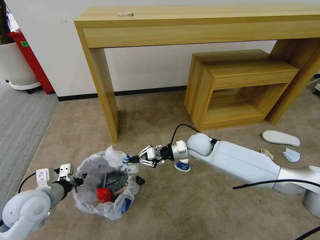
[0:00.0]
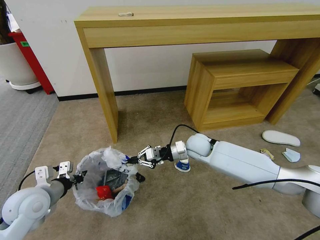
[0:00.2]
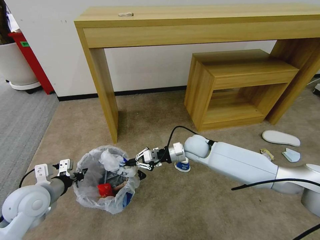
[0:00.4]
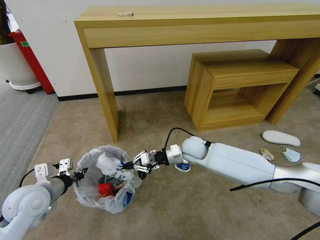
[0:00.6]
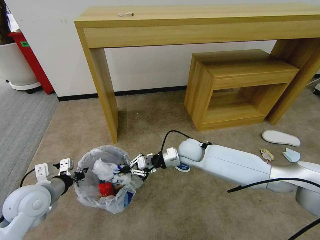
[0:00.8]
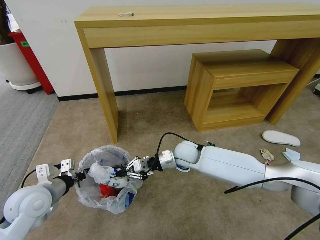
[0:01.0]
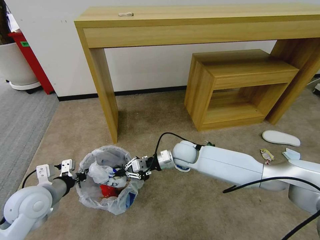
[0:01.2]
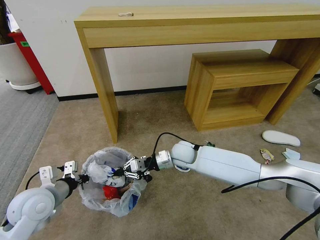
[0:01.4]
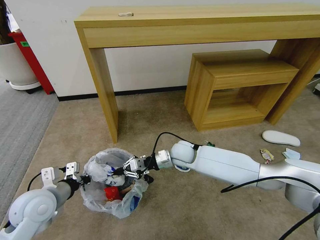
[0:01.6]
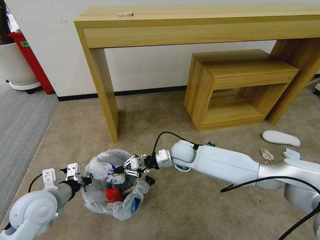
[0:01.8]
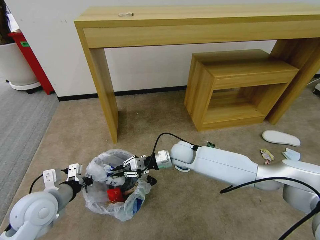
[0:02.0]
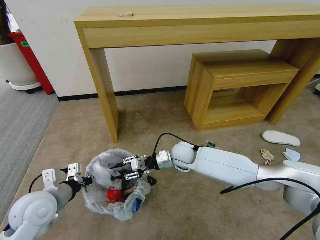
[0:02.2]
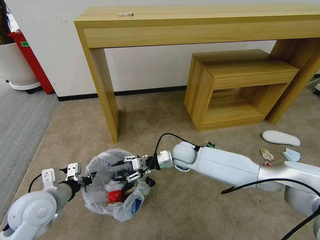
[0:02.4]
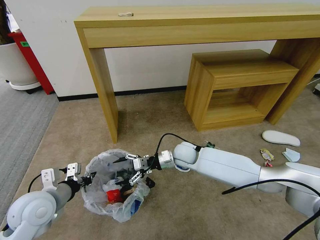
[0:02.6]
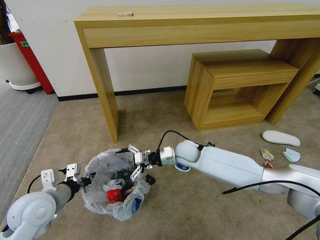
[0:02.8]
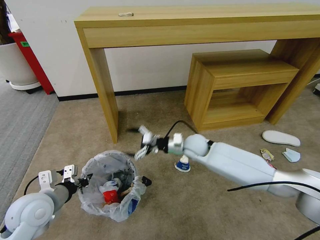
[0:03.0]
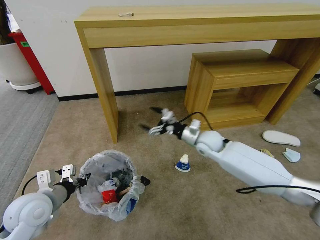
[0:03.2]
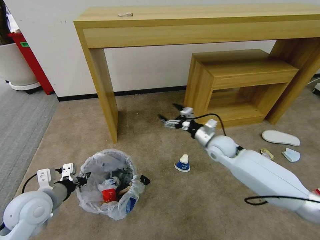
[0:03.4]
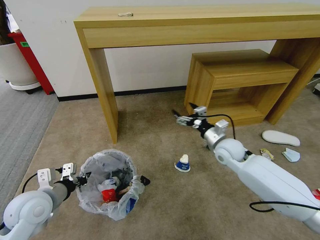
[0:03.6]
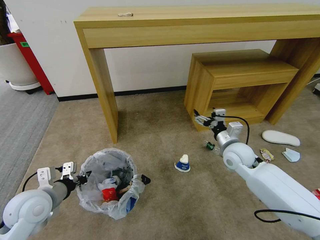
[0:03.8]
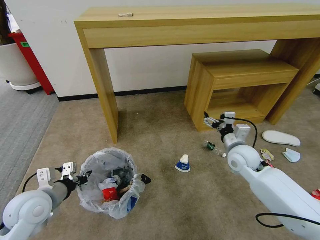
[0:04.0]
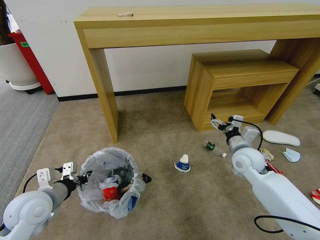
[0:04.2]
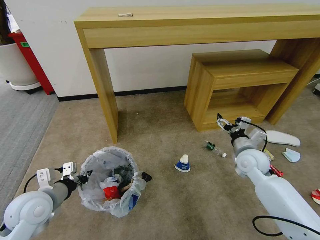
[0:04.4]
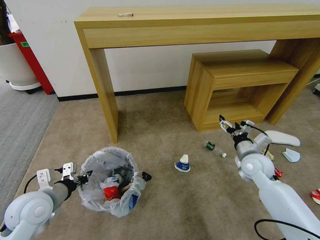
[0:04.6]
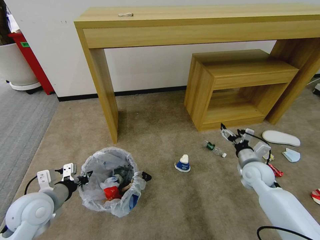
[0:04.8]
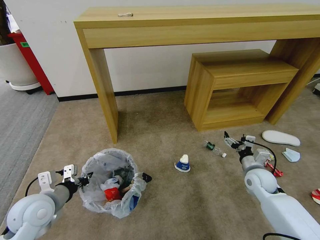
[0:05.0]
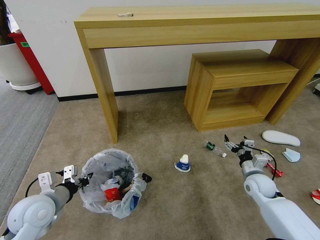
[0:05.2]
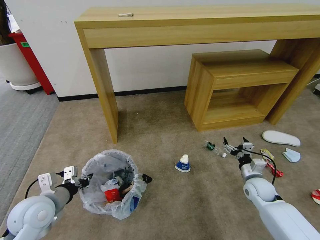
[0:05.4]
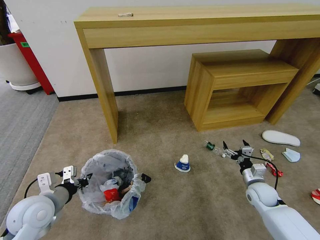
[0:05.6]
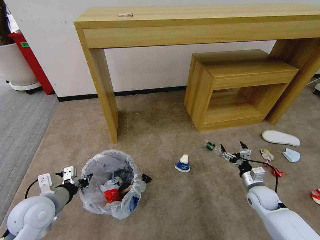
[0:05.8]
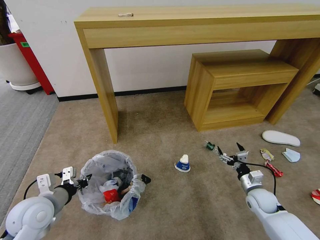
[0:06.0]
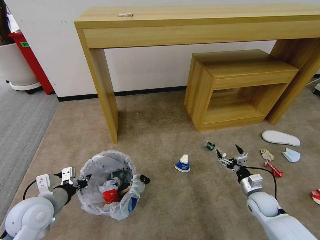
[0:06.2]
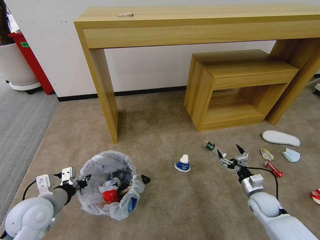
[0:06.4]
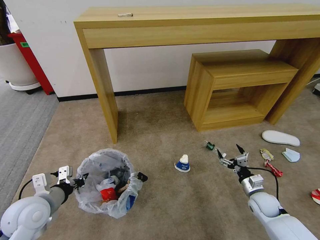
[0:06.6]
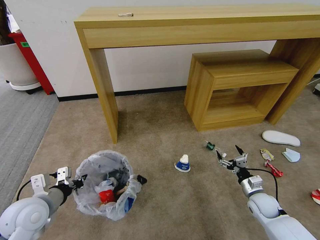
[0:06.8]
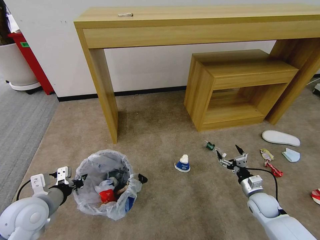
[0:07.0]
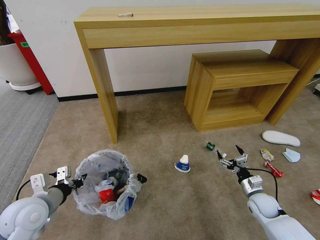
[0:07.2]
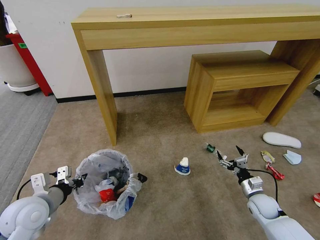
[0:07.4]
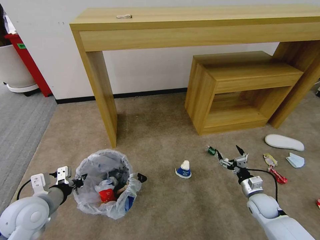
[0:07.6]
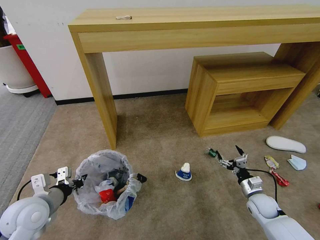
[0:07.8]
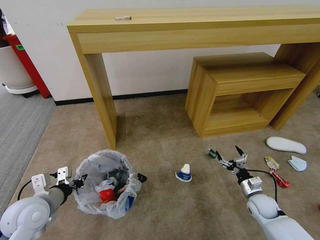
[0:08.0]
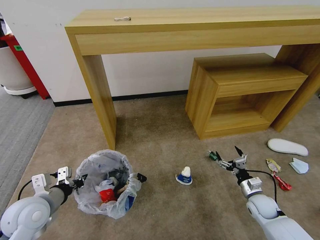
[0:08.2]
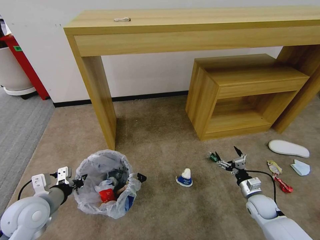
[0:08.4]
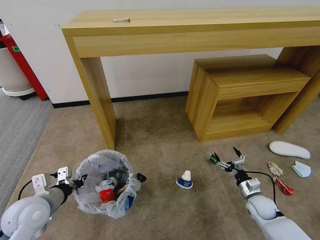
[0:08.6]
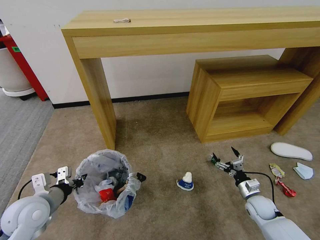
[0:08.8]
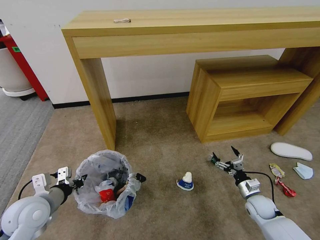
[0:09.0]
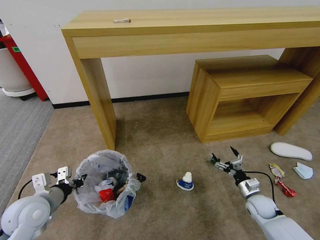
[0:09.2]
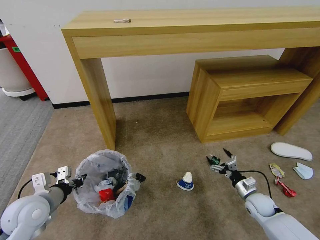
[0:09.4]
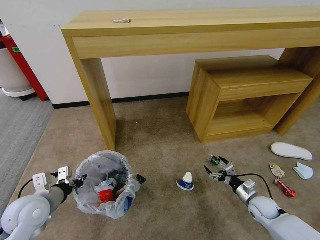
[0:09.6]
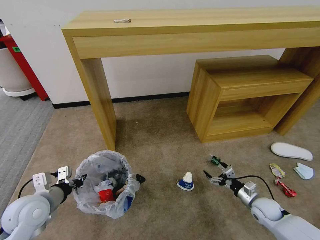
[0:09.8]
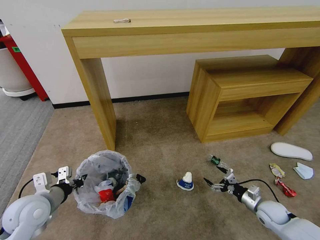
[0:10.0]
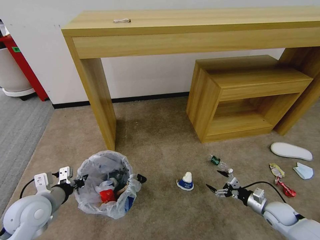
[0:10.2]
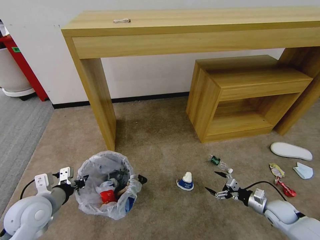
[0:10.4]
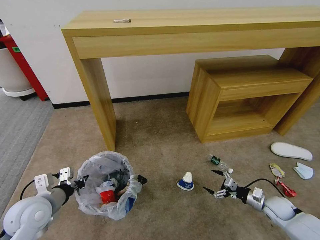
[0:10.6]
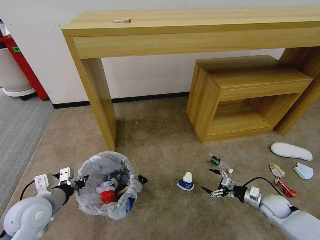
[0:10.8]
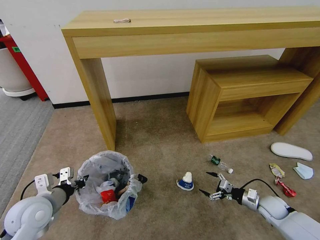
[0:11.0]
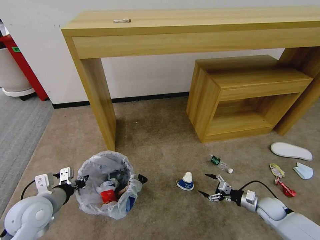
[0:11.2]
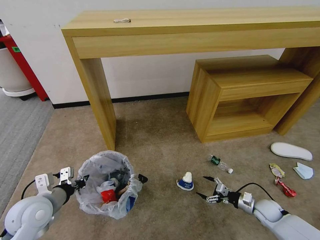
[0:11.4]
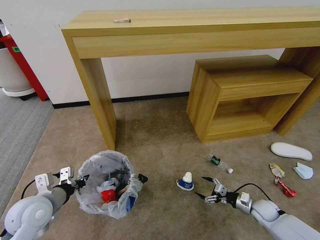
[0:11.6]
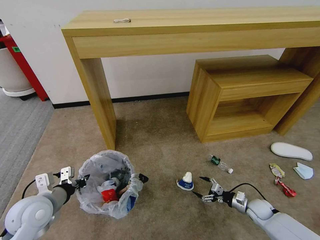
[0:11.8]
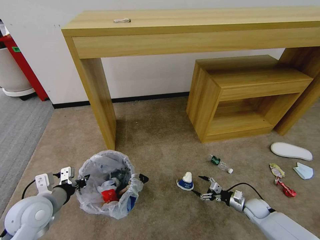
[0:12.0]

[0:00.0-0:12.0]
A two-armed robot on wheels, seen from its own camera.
Task of the whole recording: Pick up the trash bin and place the garbage on the floor into it.
0:00.0 to 0:01.6: The right gripper goes about 5 cm to the left.
0:01.6 to 0:03.0: The right gripper opens its fingers.
0:03.0 to 0:04.4: The right gripper goes about 20 cm to the right.
0:04.4 to 0:06.0: The right gripper shifts approximately 20 cm downward, backward and to the right.
0:06.0 to 0:07.6: There are only small adjustments of the grippers.
0:09.0 to 0:10.4: The right gripper heads to the right, covering some 5 cm.
0:10.4 to 0:12.0: The right gripper goes approximately 5 cm downward.

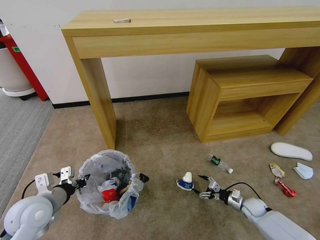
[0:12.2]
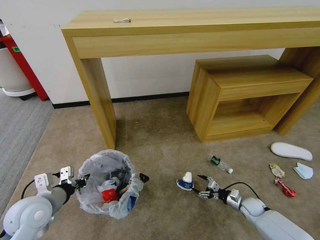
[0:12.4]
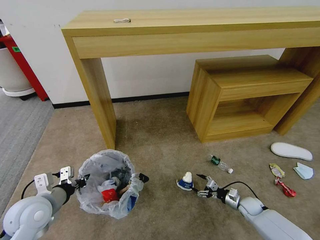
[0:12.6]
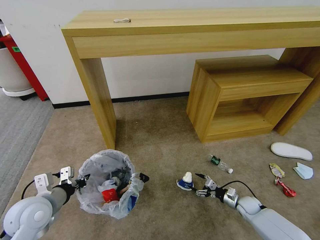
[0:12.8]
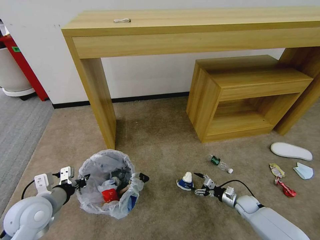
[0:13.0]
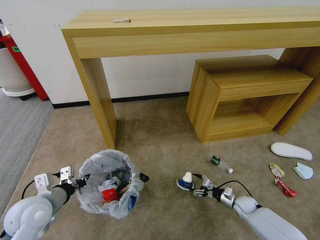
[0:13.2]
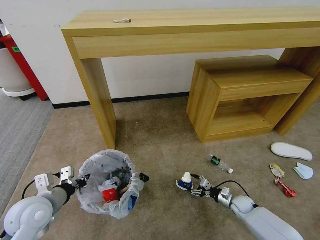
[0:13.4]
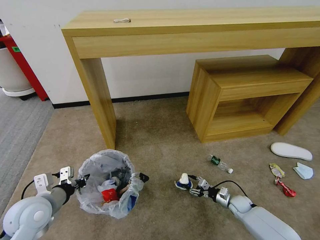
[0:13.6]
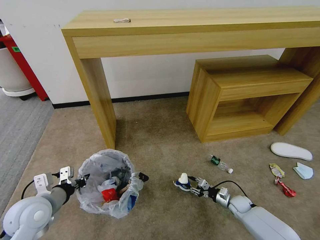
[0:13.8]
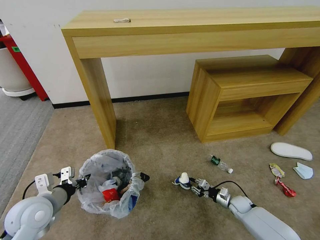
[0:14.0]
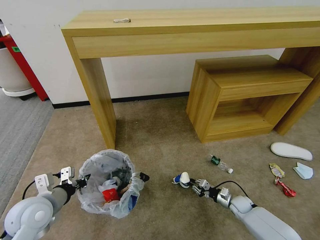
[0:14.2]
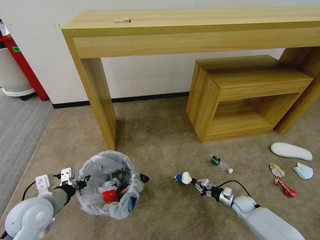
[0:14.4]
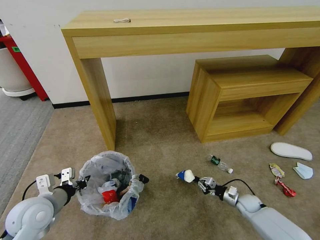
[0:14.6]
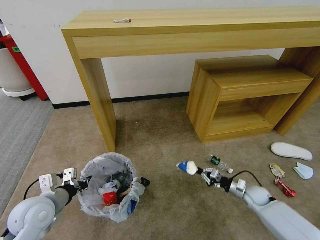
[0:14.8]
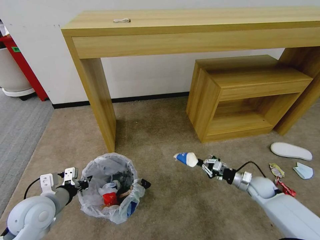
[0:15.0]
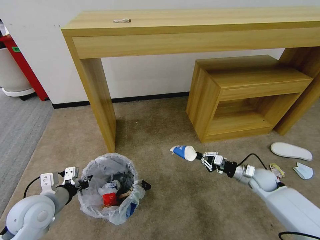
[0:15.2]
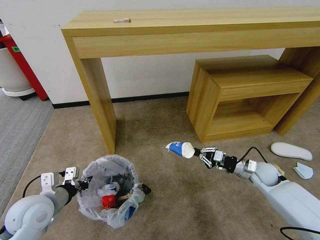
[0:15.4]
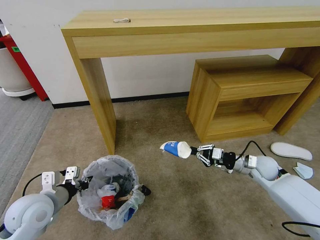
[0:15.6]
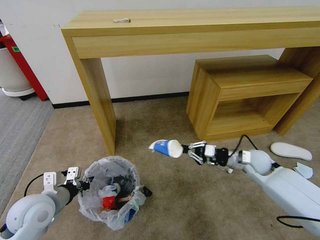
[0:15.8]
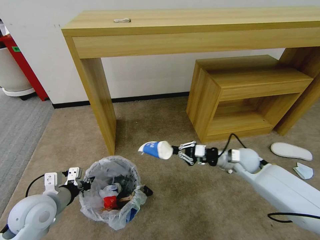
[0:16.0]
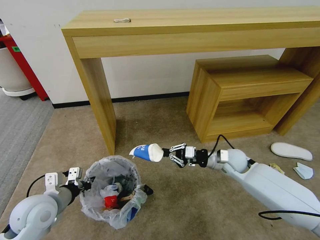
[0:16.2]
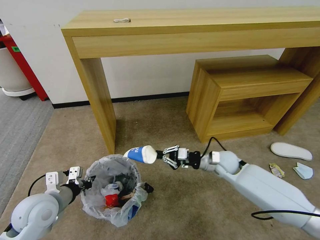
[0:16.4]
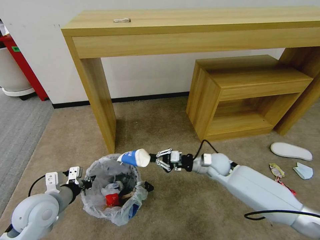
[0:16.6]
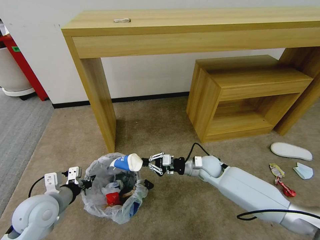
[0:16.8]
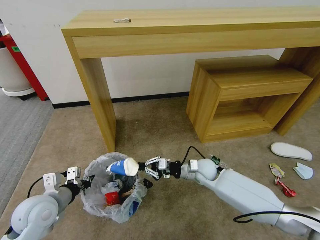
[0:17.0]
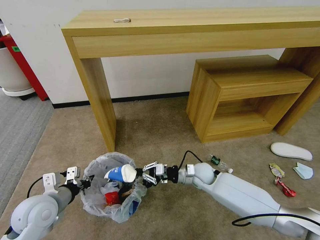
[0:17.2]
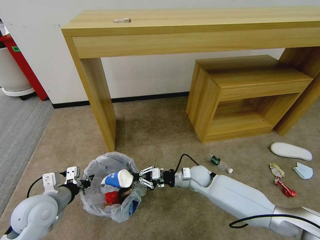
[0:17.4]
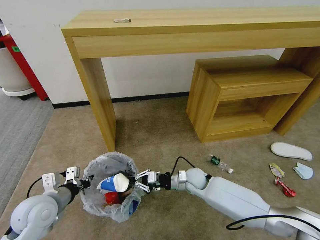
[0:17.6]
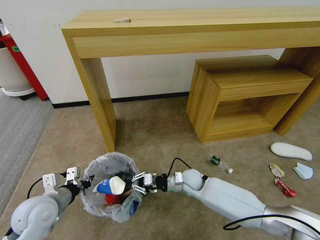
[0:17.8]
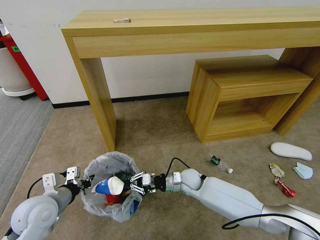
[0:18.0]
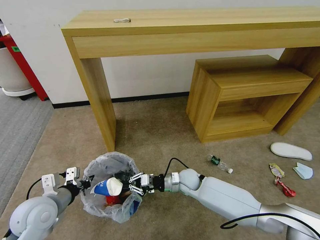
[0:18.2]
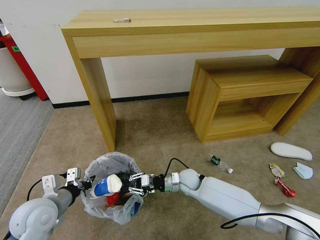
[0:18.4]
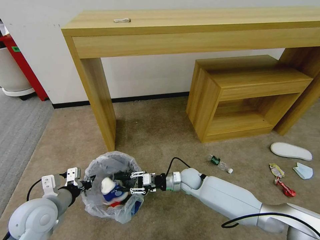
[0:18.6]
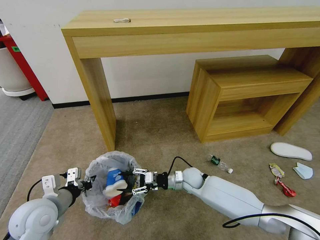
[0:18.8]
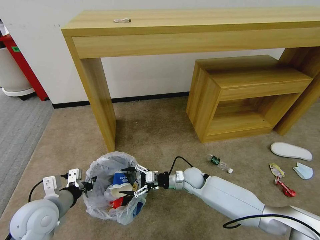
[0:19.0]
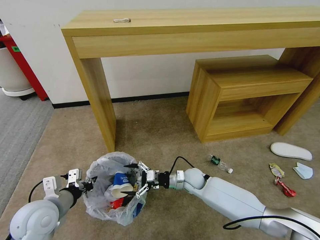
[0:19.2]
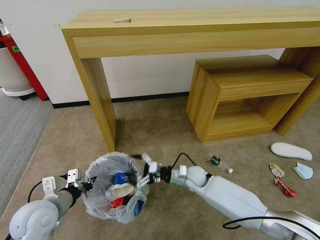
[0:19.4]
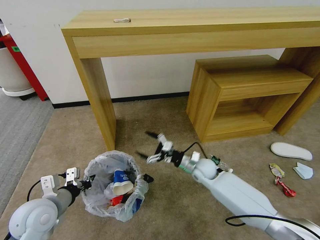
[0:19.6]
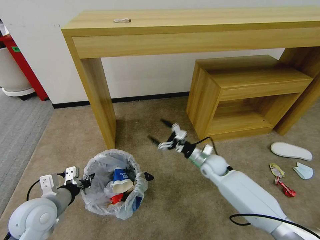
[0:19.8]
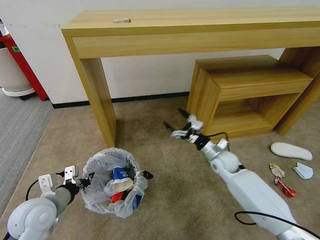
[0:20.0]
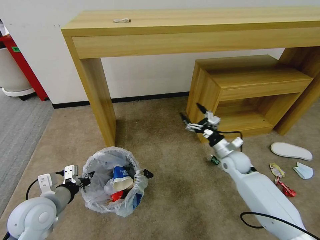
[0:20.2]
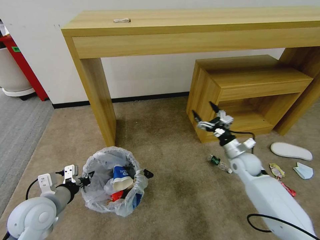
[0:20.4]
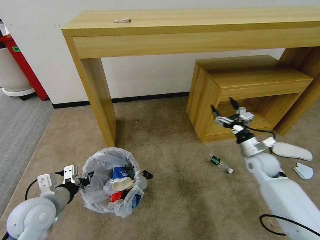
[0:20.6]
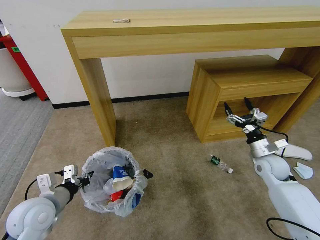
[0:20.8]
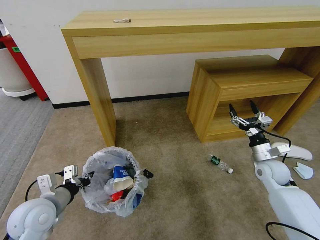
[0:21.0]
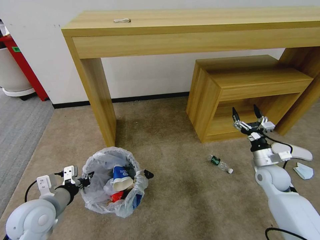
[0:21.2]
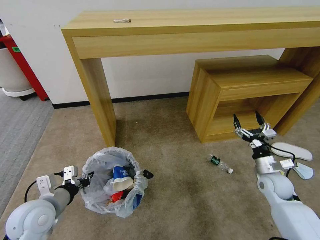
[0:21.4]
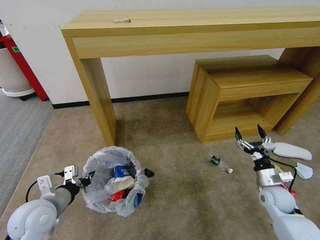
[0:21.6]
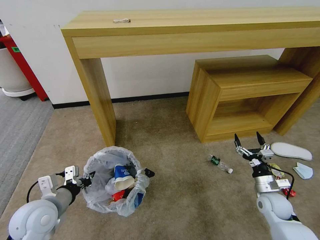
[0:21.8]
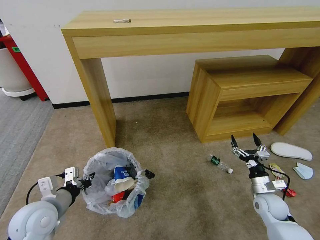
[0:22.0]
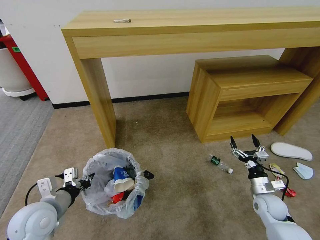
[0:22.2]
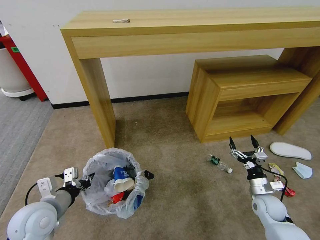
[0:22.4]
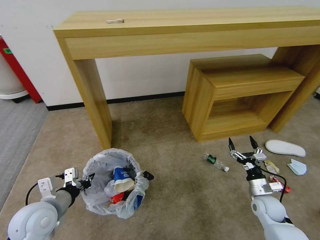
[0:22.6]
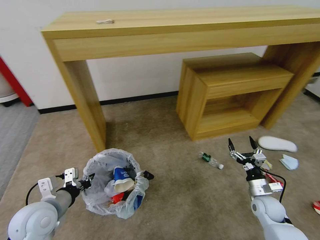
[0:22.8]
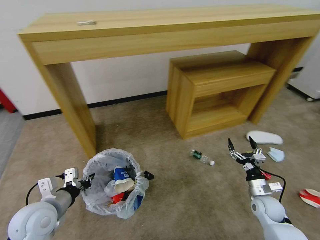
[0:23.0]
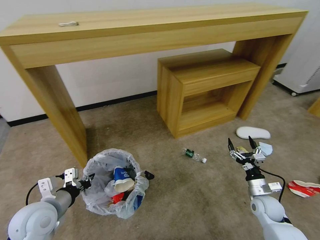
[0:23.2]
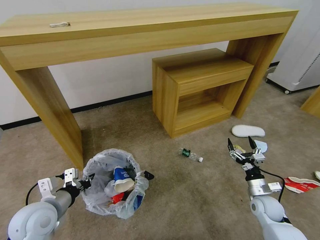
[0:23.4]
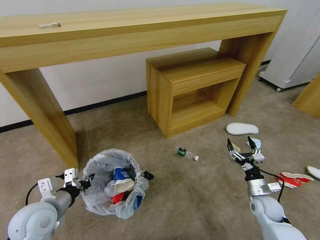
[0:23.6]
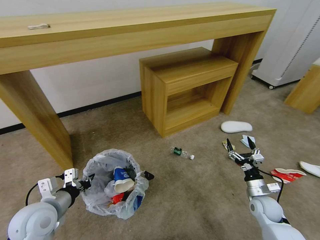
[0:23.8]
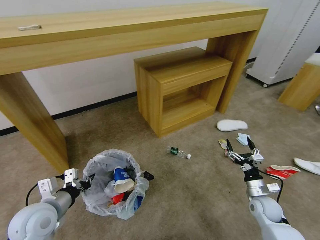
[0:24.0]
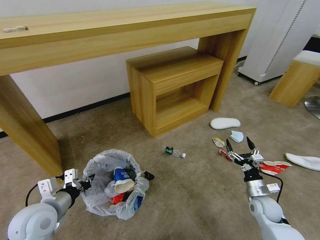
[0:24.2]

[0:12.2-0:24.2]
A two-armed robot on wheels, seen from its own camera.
Task of the whole recording: Pick up the trash bin and place the garbage on the floor into it.
0:12.2 to 0:13.8: The right gripper moves roughly 5 cm, and closes.
0:13.8 to 0:15.2: The right gripper heads upward, covering approximately 20 cm, and closes.
0:15.2 to 0:16.6: The right gripper goes roughly 20 cm to the left.
0:16.6 to 0:18.2: The right gripper heads to the left and downward, covering some 10 cm.
0:18.2 to 0:19.8: The right gripper goes some 10 cm to the right, and opens its fingers.
0:19.8 to 0:21.2: The right gripper heads to the right, covering roughly 20 cm.
0:21.2 to 0:22.6: The right gripper moves downward and backward, roughly 10 cm.
